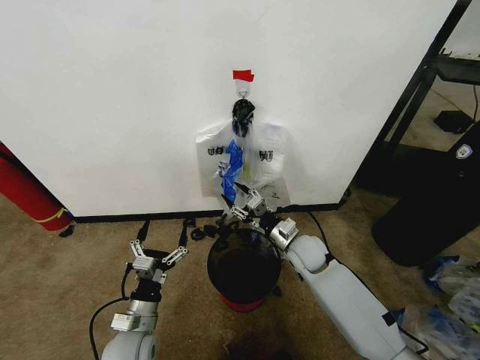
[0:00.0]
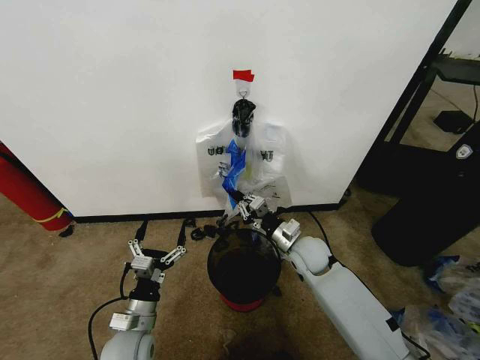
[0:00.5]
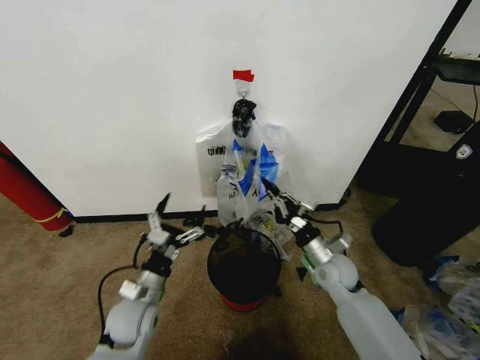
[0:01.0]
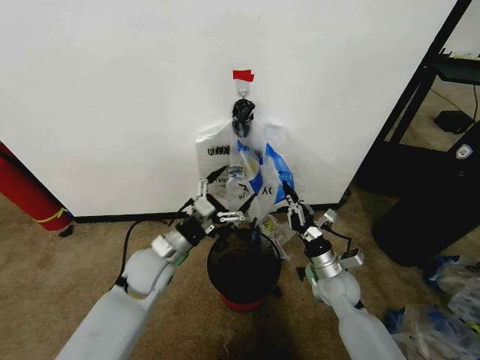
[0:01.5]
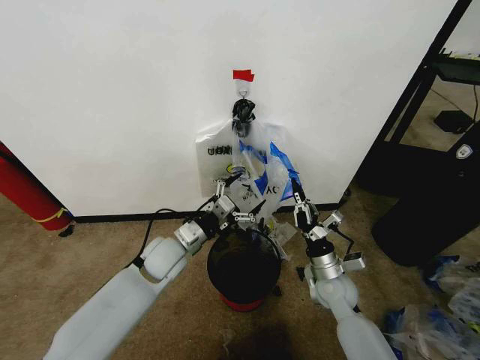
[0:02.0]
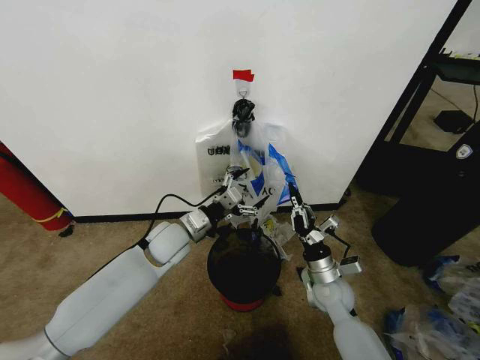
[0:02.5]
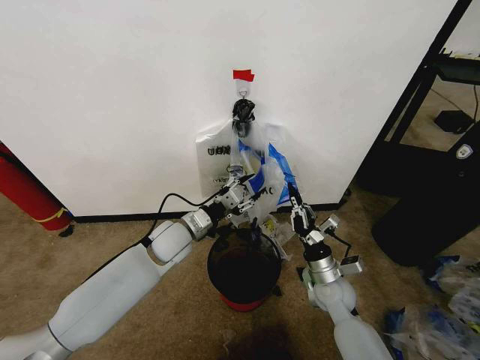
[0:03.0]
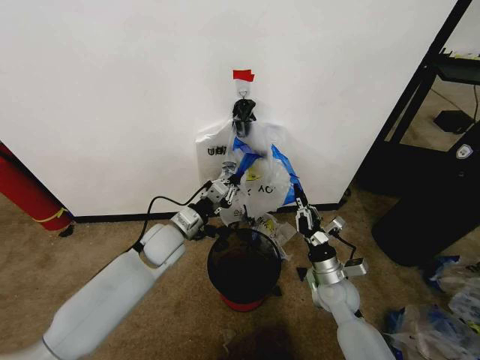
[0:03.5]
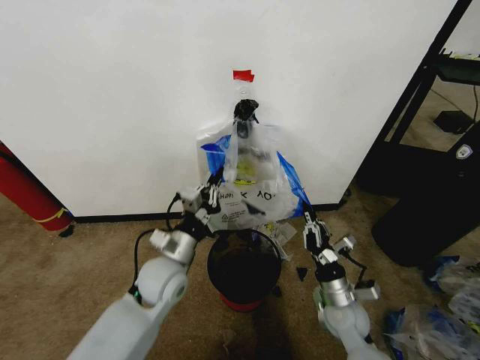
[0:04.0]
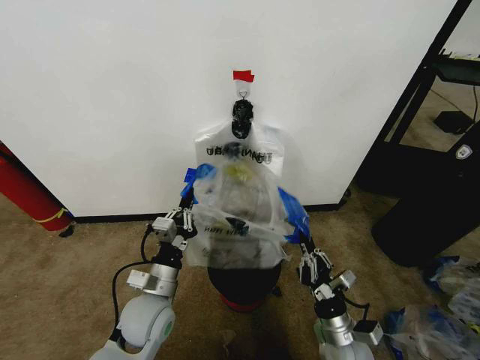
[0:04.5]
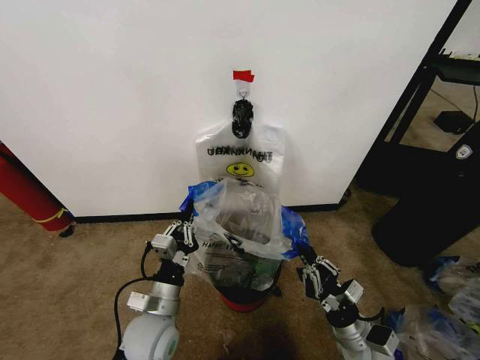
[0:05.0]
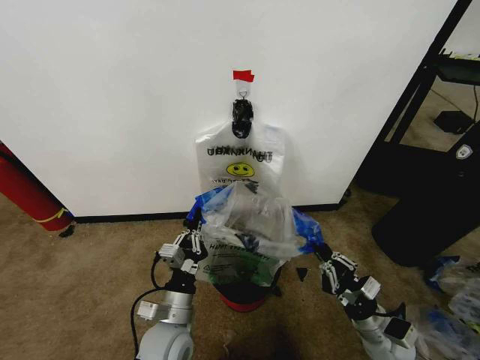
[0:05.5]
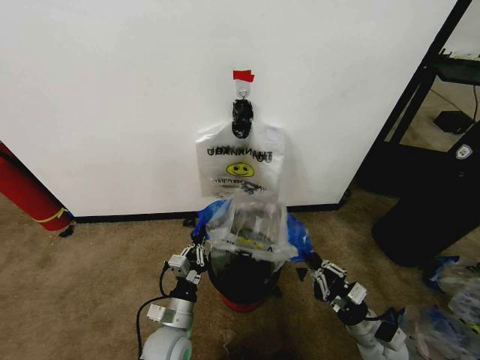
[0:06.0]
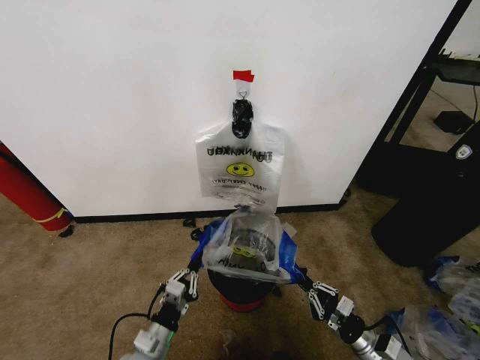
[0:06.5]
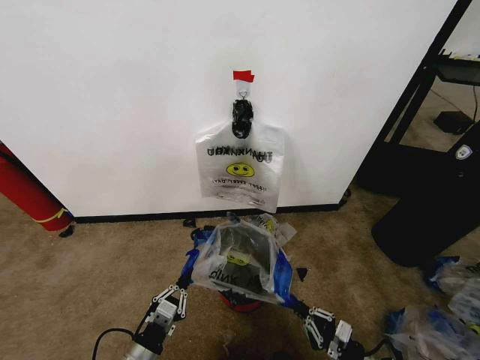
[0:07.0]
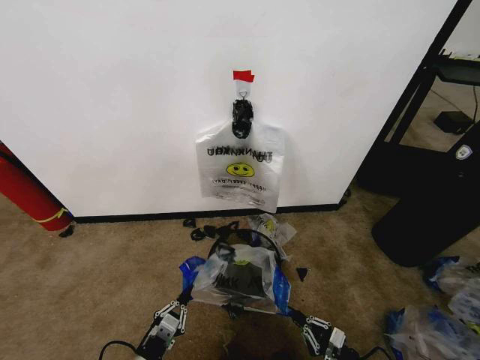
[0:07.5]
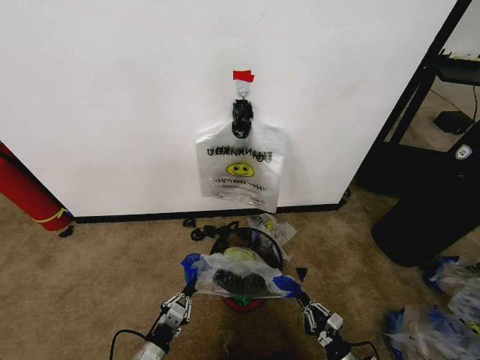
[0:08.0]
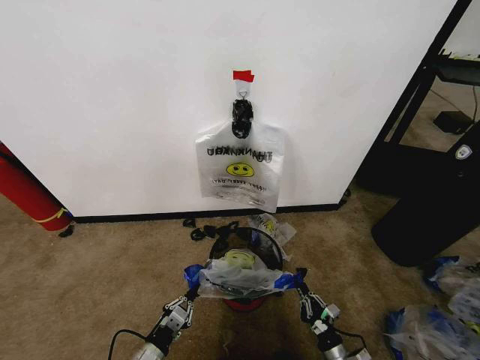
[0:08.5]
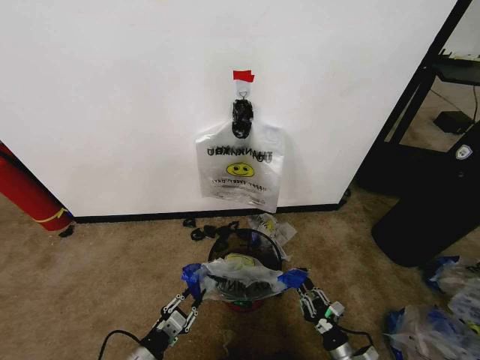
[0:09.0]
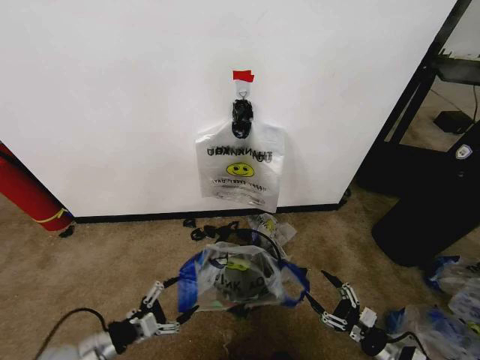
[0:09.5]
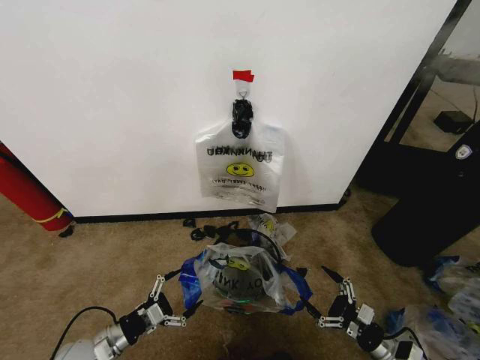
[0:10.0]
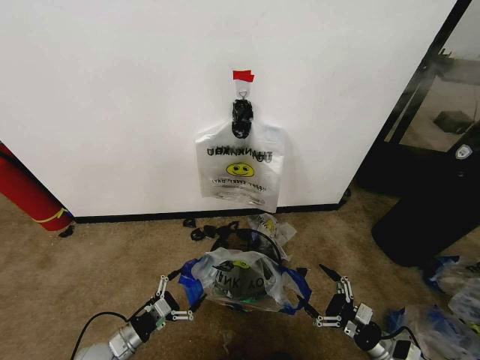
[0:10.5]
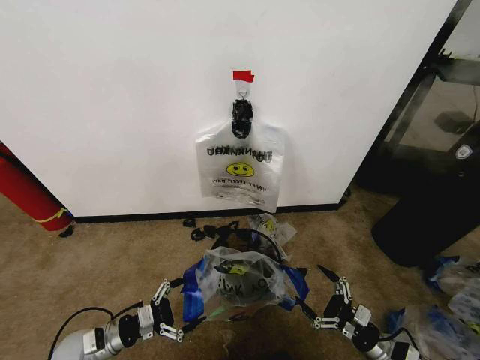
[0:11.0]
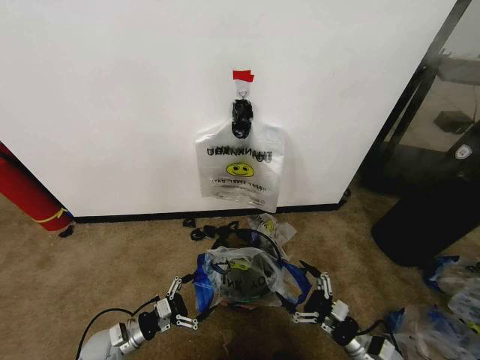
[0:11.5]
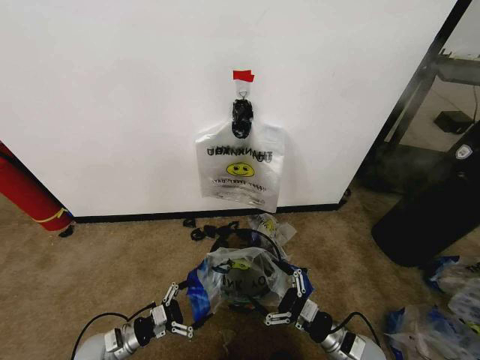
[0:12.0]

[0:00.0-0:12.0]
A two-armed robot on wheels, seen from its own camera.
Task of the whole recording: Pick up the garbage bag from the wall and place it over the trash bin.
0:00.0 to 0:02.0: The left gripper goes approximately 20 cm forward and upward. The right gripper goes approximately 10 cm backward and to the right, and closes its fingers.
0:02.0 to 0:04.0: Both grippers move backward, some 5 cm. The left gripper closes.
0:04.0 to 0:06.0: The right gripper moves to the right and backward, roughly 10 cm, while the left gripper goes about 15 cm downward and backward.
0:06.0 to 0:08.0: The left gripper is displaced to the left, backward and downward by approximately 15 cm. The right gripper travels downward and backward by roughly 15 cm.
0:08.0 to 0:10.0: The right gripper goes about 10 cm upward and to the right, and opens up, while the left gripper heads to the left, forward and upward, covering approximately 15 cm, and opens its fingers.
0:10.0 to 0:12.0: The right gripper shifts roughly 10 cm to the left. The left gripper moves downward, about 5 cm.

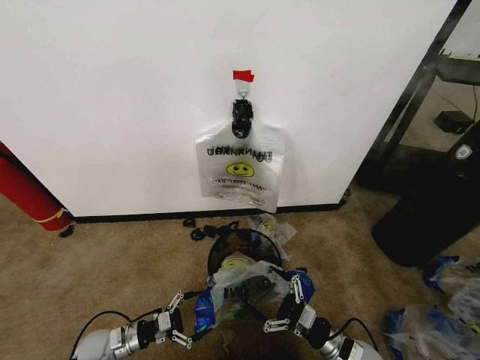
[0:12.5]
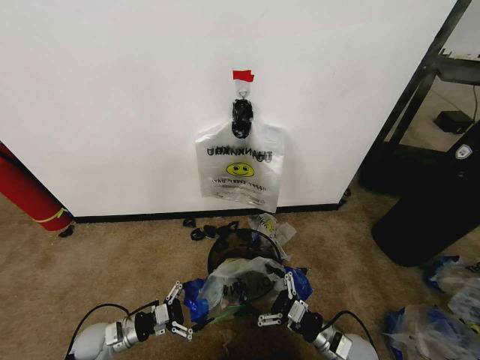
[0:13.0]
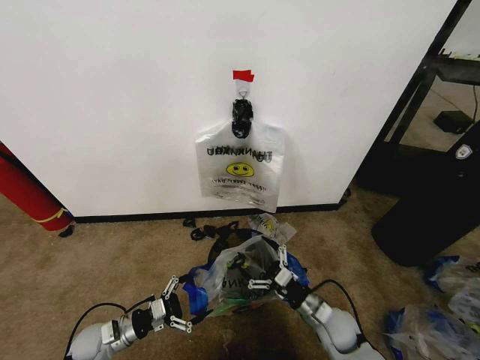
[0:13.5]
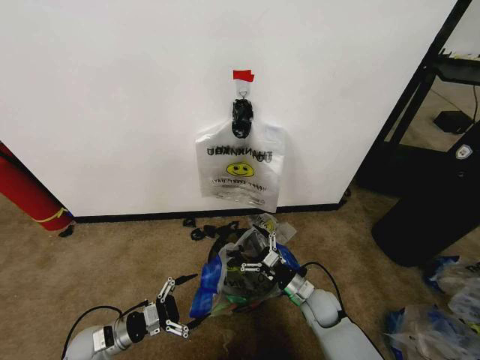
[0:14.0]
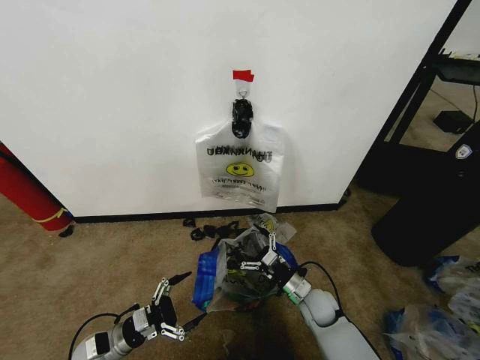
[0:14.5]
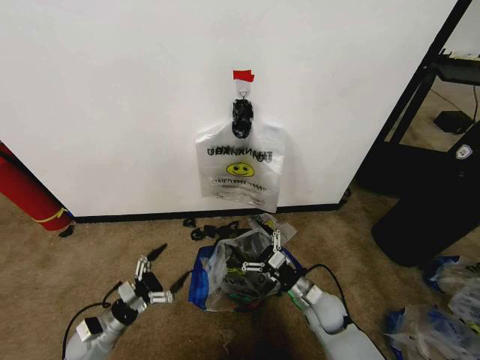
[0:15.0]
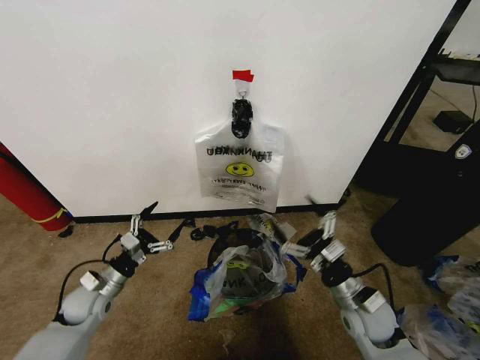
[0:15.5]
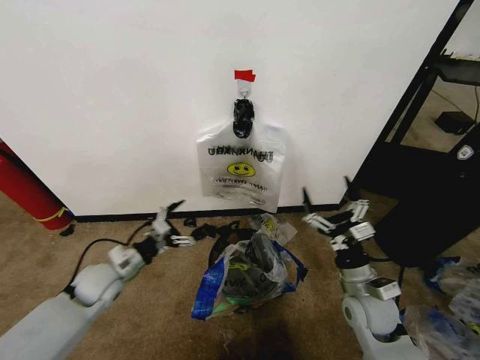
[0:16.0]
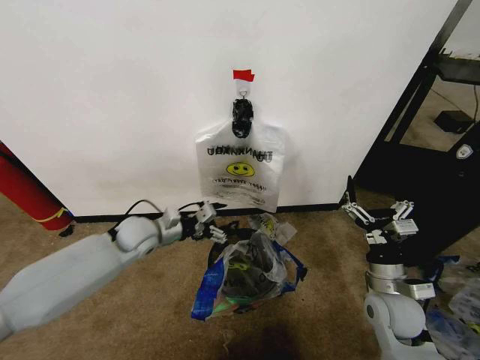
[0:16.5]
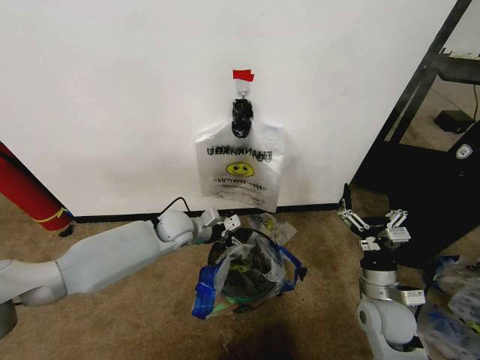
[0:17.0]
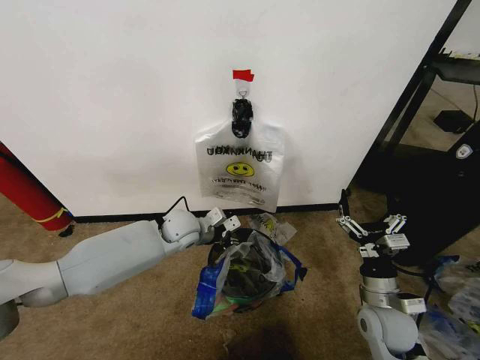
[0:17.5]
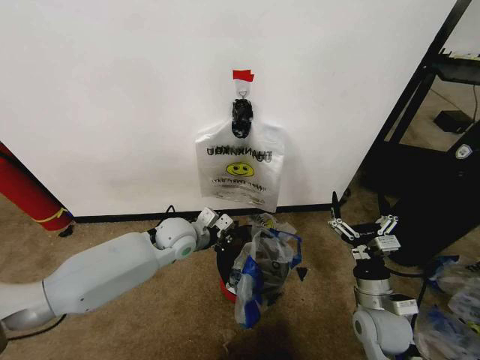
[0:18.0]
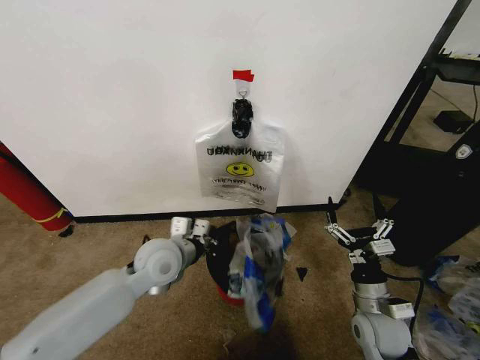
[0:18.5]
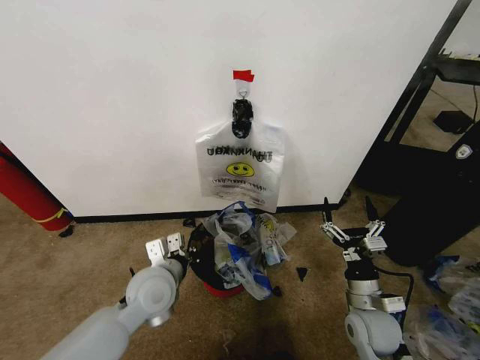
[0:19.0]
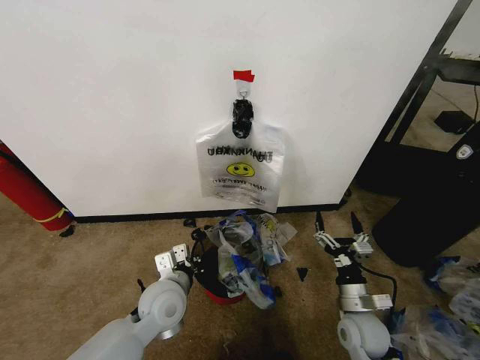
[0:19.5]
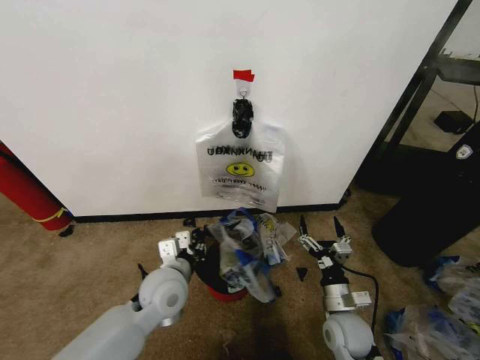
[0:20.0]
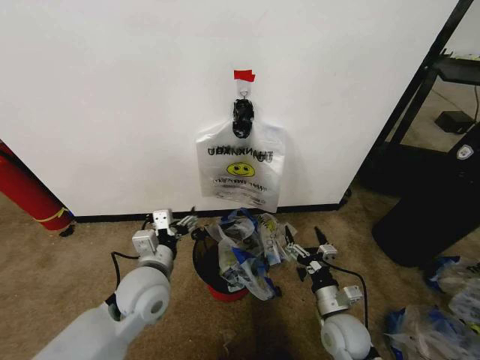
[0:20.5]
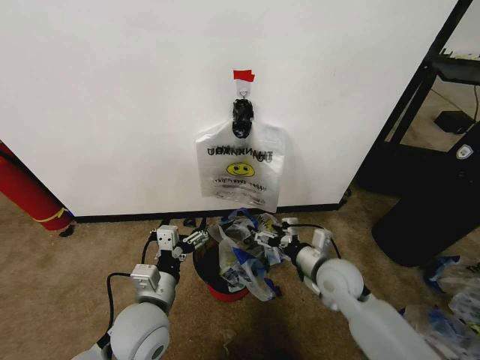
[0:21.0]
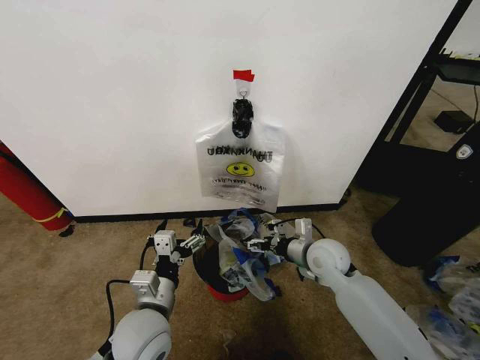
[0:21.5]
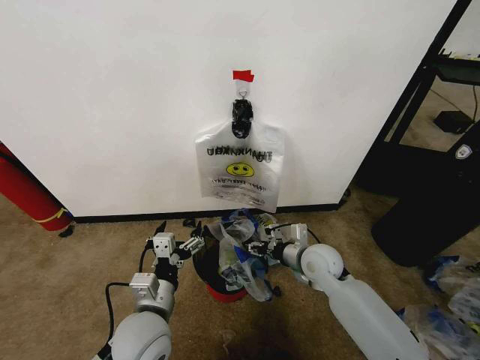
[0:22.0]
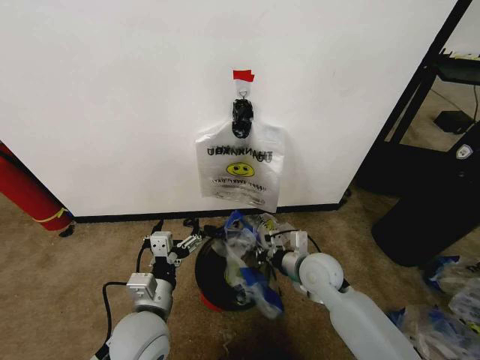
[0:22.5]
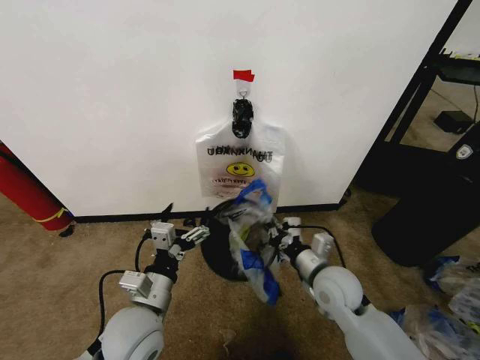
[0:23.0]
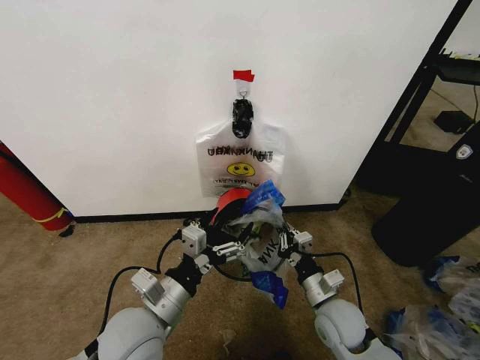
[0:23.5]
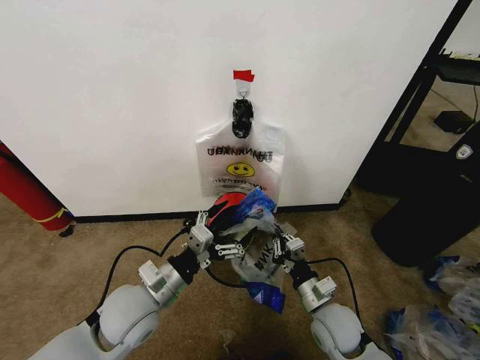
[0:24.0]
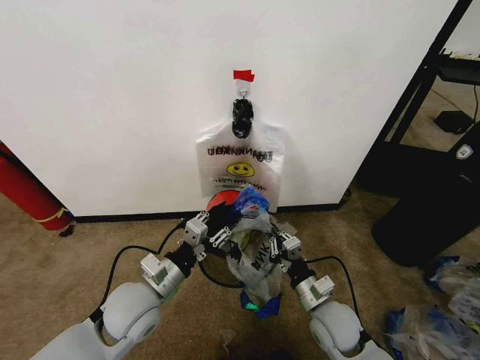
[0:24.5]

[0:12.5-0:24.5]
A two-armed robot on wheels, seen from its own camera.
Task of the whole recording: Pick up the garbage bag from the wall and place it over the trash bin.
0:12.5 to 0:14.5: The right gripper heads forward and to the left, covering roughly 15 cm.
0:14.5 to 0:16.5: The left gripper travels forward, upward and to the right by roughly 30 cm, while the right gripper heads upward and to the right, covering some 20 cm.
0:16.5 to 0:18.5: The left gripper shifts approximately 10 cm to the right and backward, and closes up.
0:18.5 to 0:20.5: The left gripper goes about 10 cm backward, and opens its fingers; the right gripper travels downward and to the left by roughly 10 cm.
0:20.5 to 0:22.5: The left gripper shifts approximately 5 cm backward; the right gripper travels forward and upward by about 15 cm, and closes up.
0:22.5 to 0:24.5: The right gripper moves backward, about 10 cm, while the left gripper shifts by approximately 5 cm, and closes its fingers.

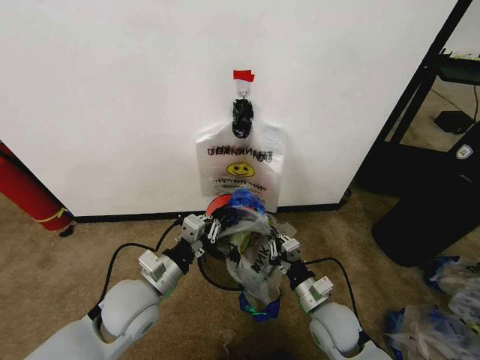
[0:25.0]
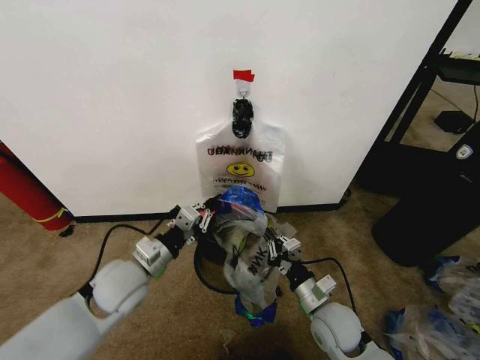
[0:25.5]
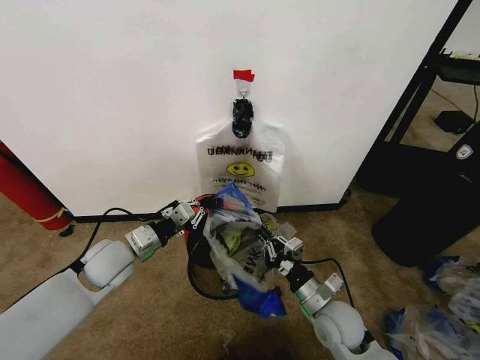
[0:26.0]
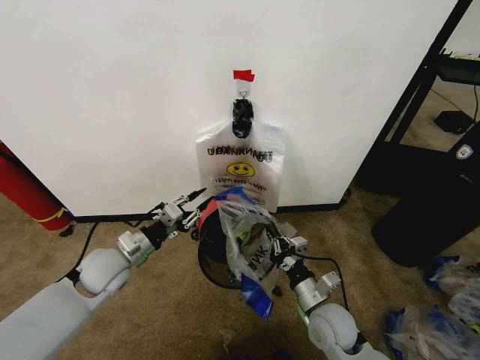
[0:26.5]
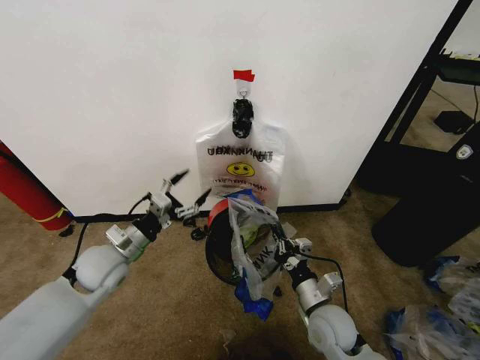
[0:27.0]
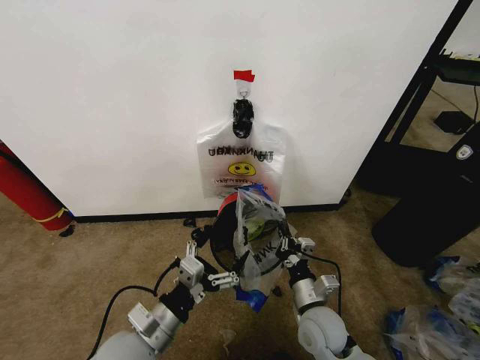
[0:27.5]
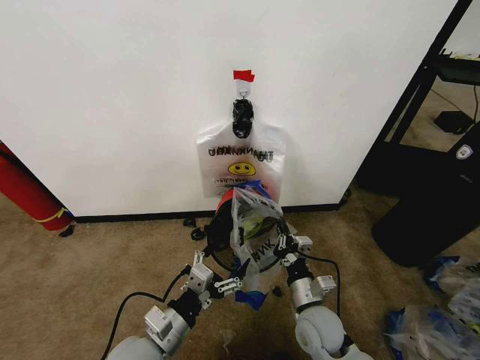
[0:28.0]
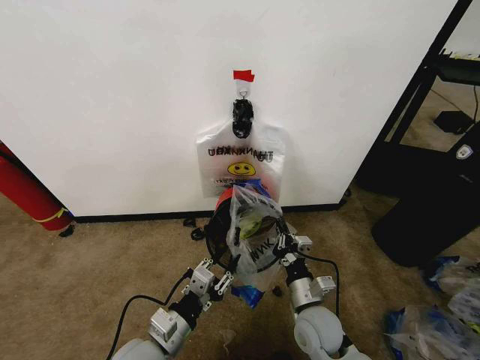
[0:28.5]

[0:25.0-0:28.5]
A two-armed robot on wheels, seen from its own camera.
Task of the whole recording: Pick up the garbage bag from the wall and place it over the trash bin.
0:25.0 to 0:27.0: The left gripper travels to the left and forward by approximately 10 cm, and opens its fingers.
0:27.0 to 0:28.5: The left gripper goes roughly 20 cm backward and to the right, and closes up.
